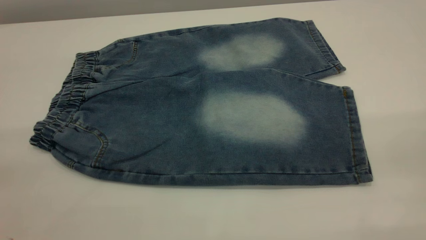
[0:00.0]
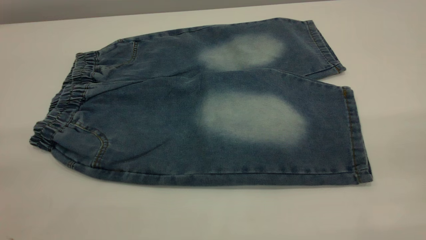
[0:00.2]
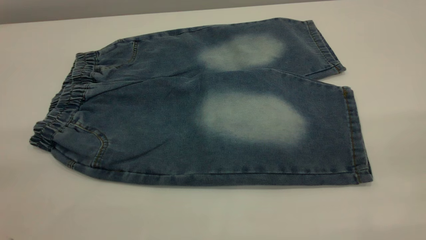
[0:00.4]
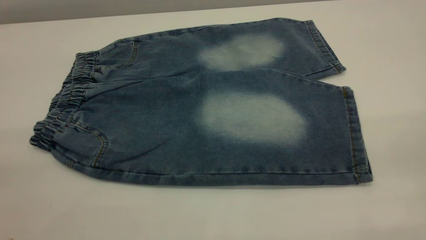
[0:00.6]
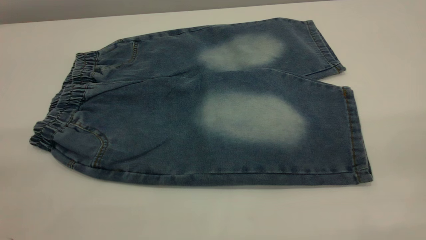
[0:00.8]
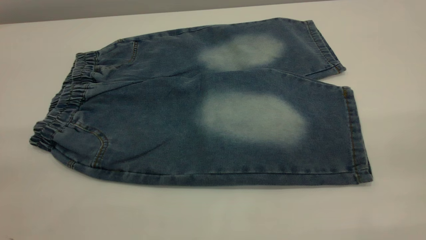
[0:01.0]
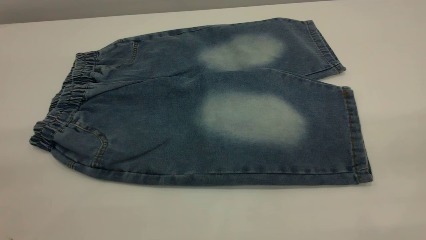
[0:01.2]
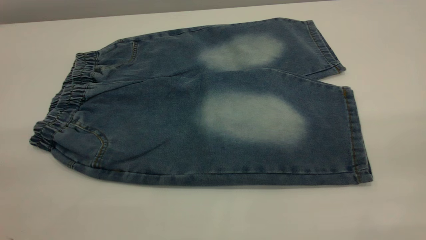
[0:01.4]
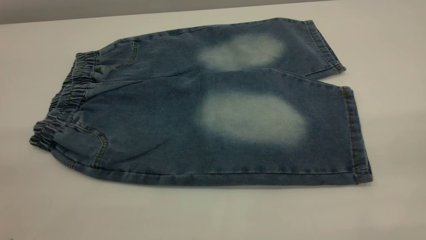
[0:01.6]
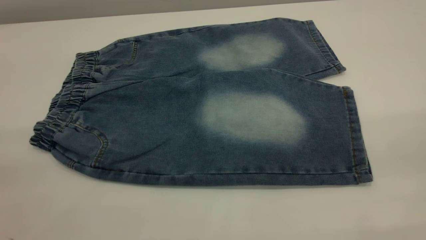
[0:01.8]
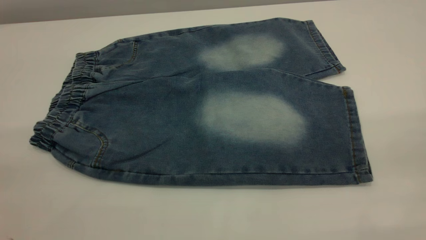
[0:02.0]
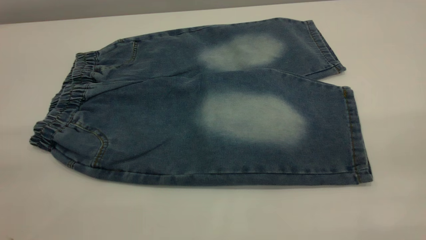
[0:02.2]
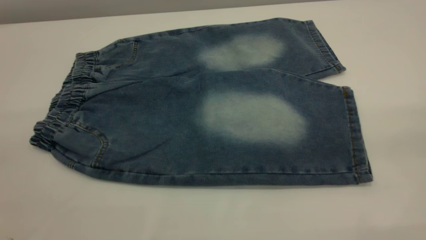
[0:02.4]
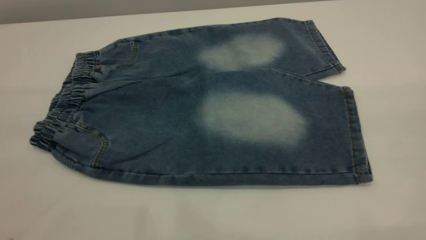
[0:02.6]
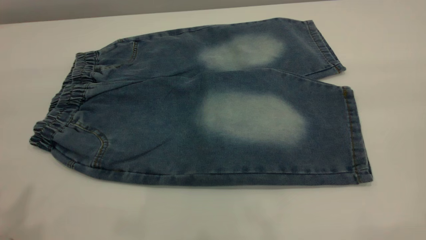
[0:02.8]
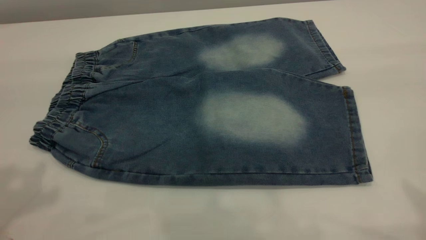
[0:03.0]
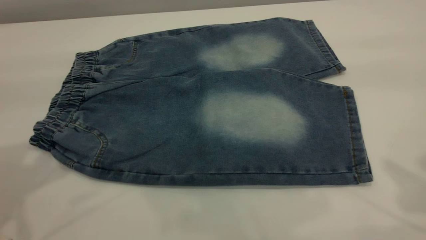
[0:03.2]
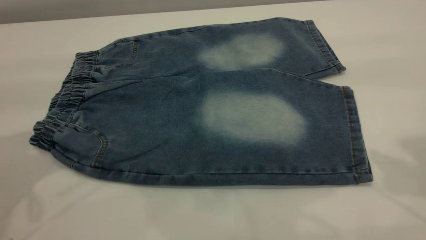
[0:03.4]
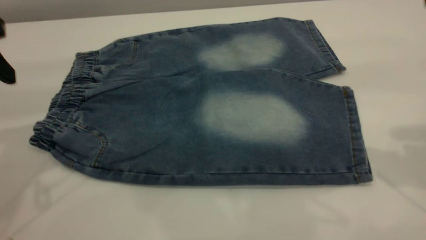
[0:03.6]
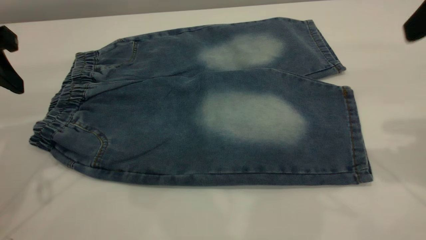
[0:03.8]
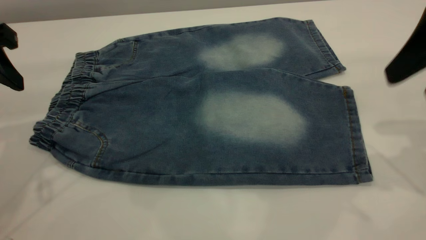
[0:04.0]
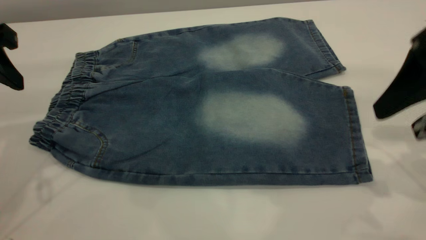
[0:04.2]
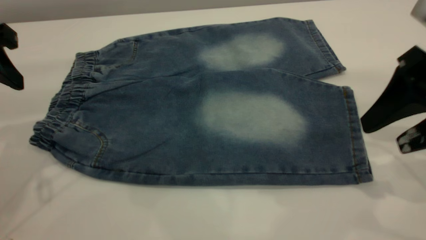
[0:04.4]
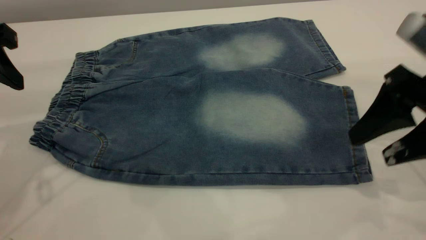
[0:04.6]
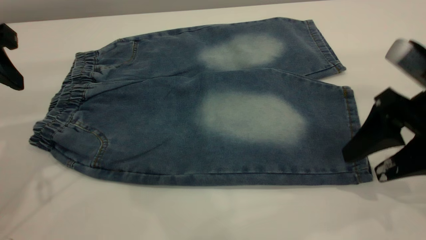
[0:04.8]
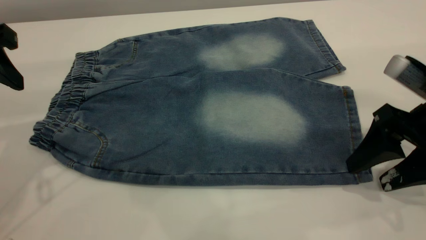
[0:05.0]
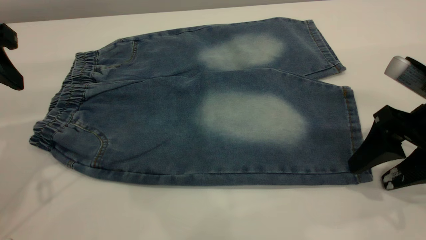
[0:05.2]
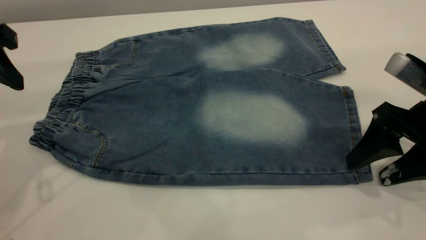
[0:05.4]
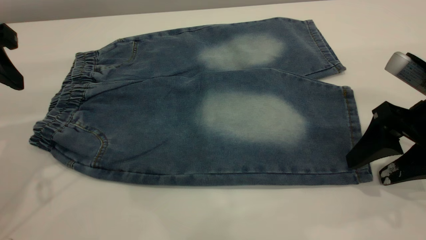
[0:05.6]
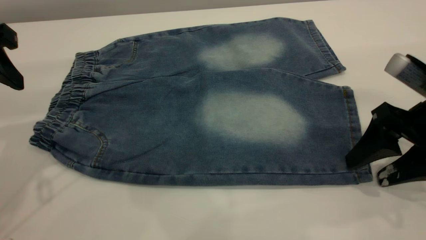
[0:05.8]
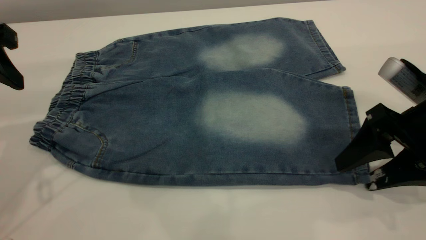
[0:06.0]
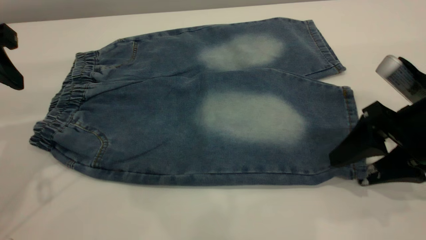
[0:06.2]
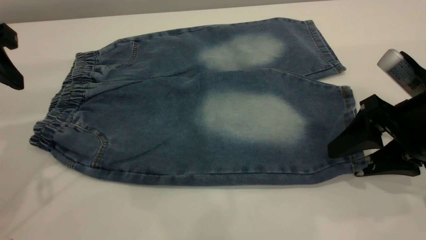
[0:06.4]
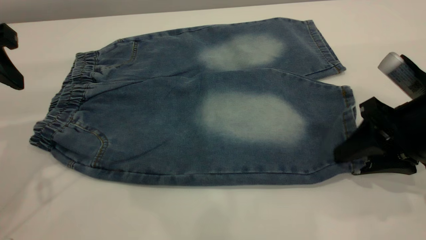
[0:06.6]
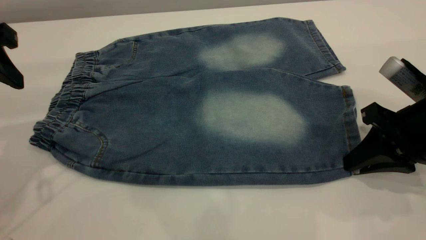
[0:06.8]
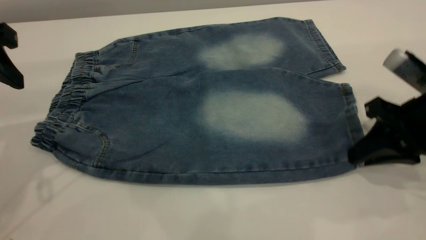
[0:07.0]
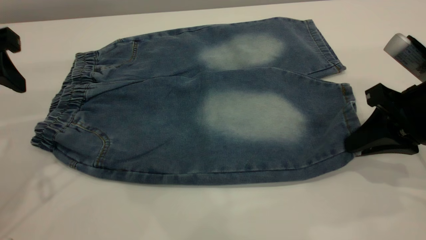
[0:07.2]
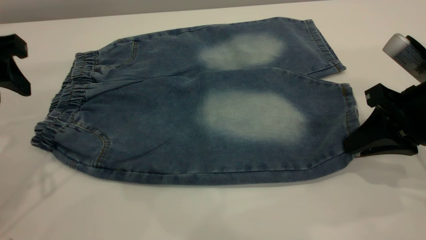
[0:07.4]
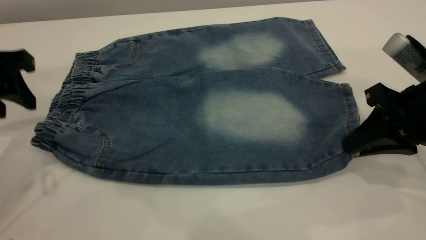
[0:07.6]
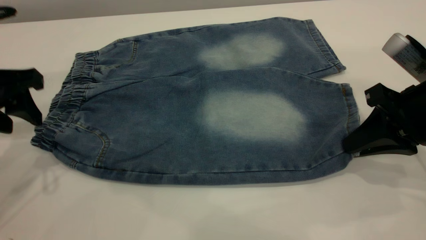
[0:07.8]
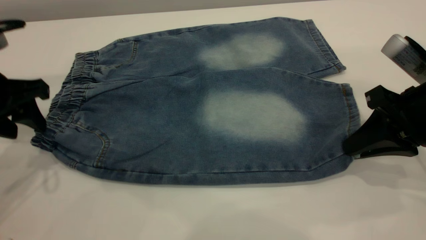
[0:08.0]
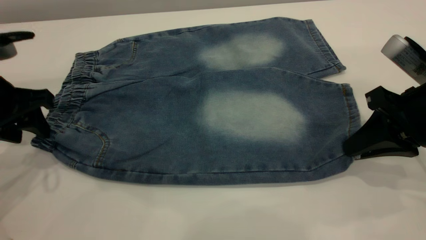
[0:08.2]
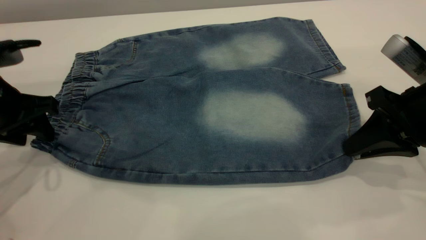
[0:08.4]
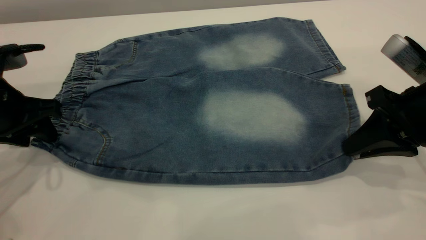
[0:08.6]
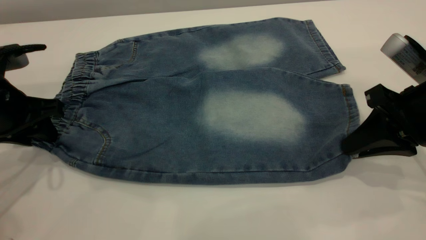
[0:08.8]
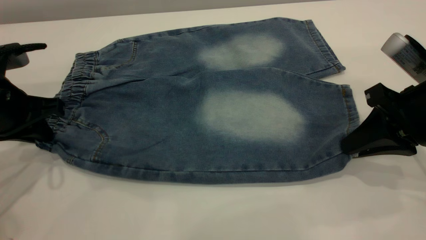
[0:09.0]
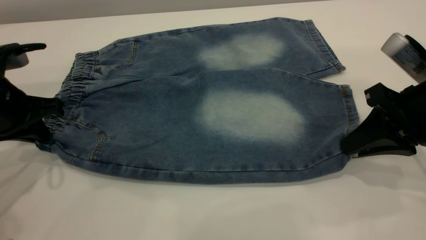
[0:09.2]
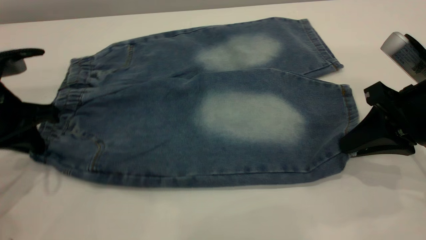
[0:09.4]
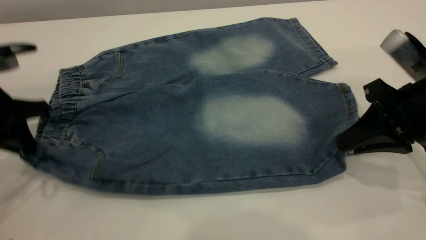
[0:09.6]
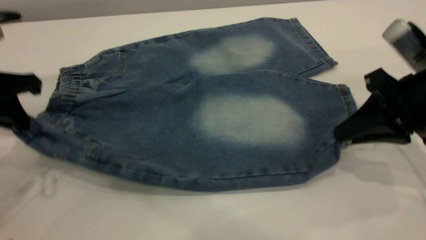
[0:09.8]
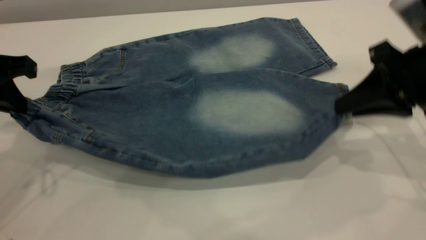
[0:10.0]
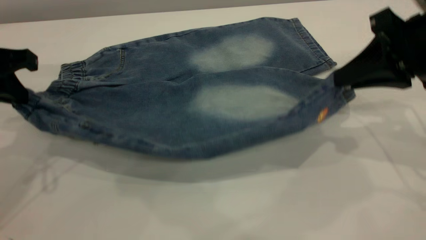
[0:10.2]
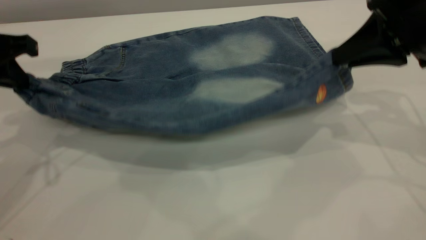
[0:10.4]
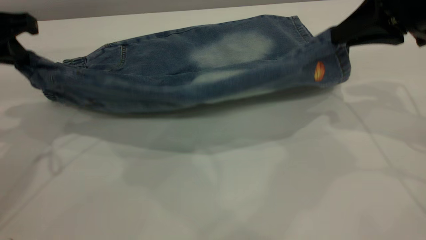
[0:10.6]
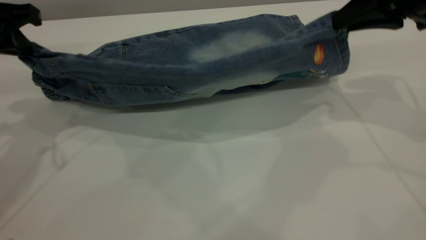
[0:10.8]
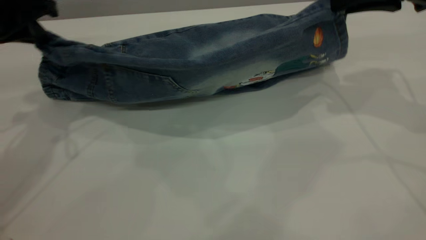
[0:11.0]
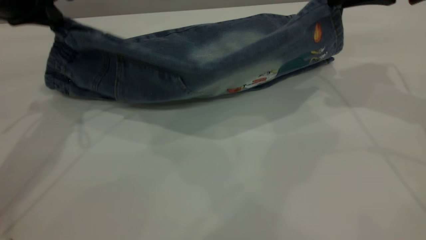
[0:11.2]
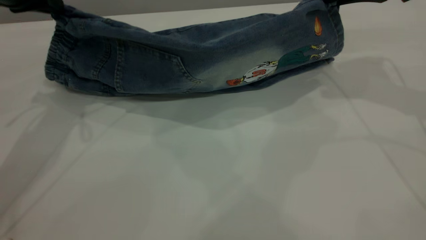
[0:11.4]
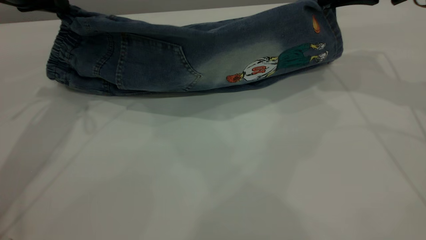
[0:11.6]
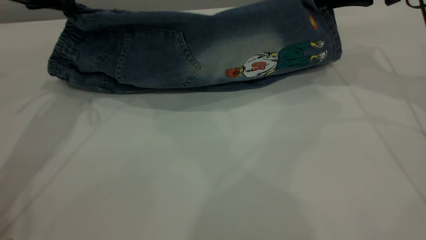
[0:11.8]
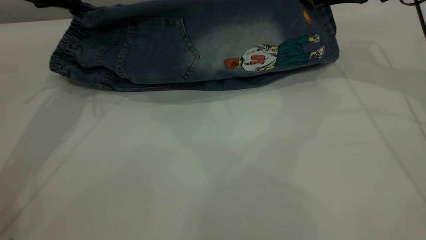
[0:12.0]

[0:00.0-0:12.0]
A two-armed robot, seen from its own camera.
0:00.0 to 0:01.6: Both grippers stay put.
0:03.0 to 0:04.4: The left gripper travels downward and forward by about 15 cm. The right gripper moves downward and forward, roughly 25 cm.
0:04.4 to 0:06.0: The right gripper goes about 10 cm downward.
0:06.0 to 0:07.6: The right gripper closes.
0:07.6 to 0:09.0: The left gripper shifts about 10 cm downward, and closes its fingers.
0:09.0 to 0:10.4: The left gripper goes about 10 cm upward; the right gripper travels upward and forward by about 10 cm.
0:10.4 to 0:12.0: Both grippers travel together forward, about 15 cm.

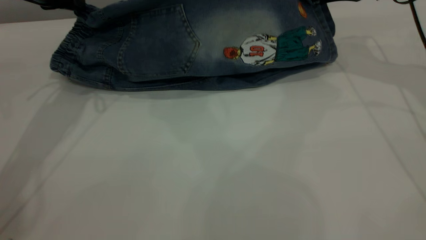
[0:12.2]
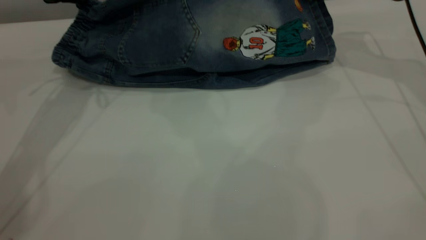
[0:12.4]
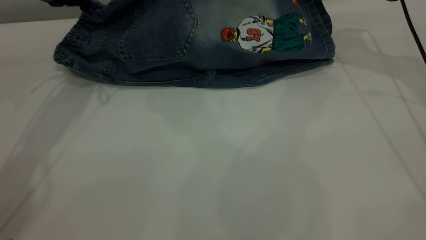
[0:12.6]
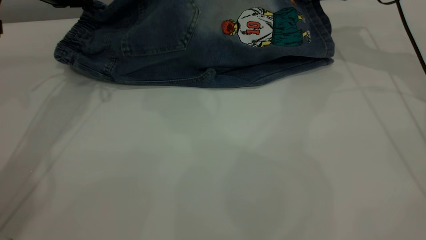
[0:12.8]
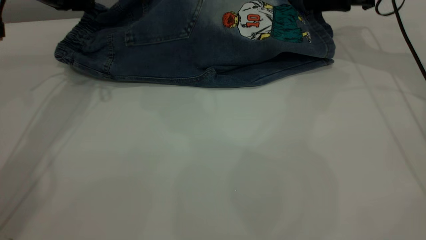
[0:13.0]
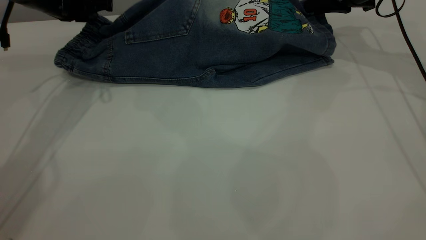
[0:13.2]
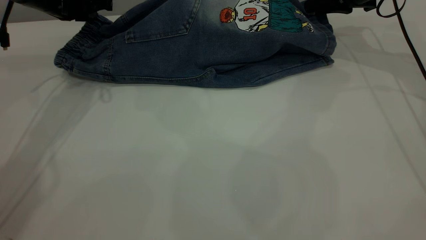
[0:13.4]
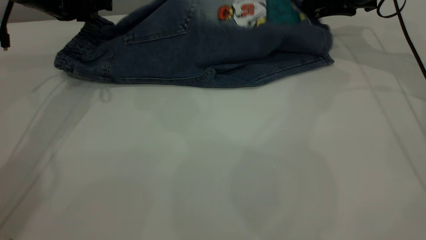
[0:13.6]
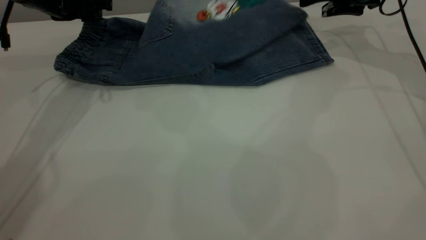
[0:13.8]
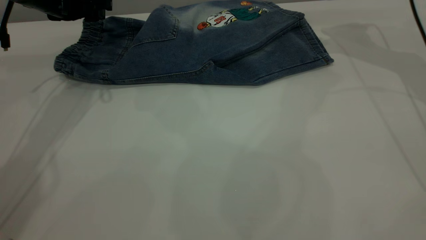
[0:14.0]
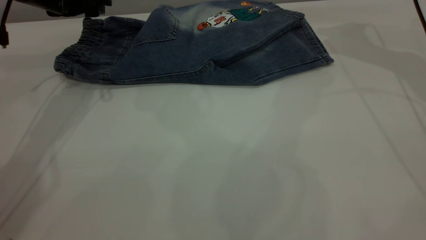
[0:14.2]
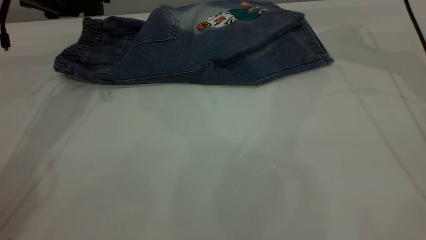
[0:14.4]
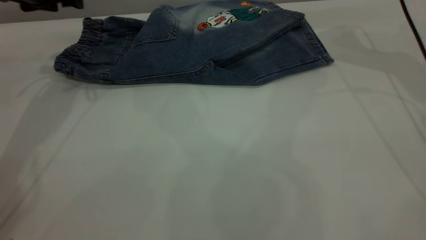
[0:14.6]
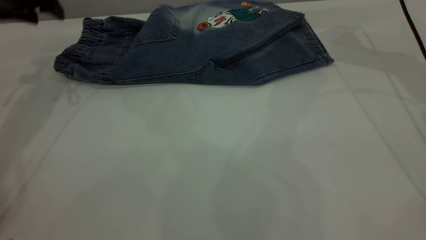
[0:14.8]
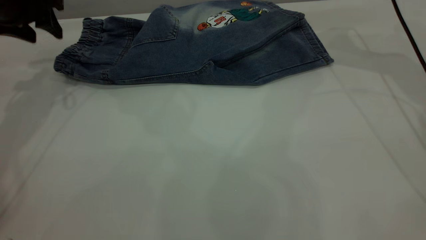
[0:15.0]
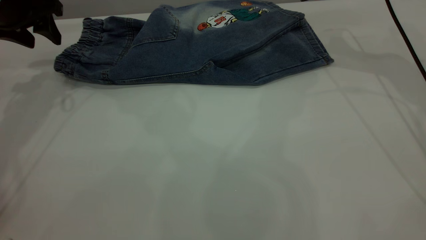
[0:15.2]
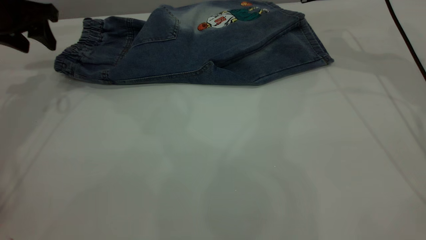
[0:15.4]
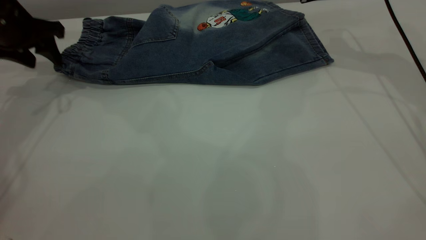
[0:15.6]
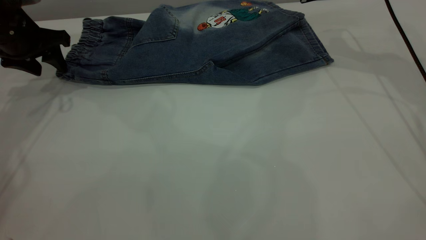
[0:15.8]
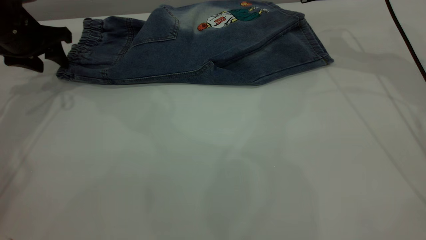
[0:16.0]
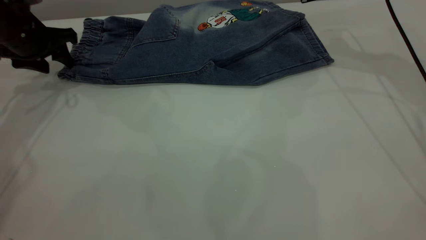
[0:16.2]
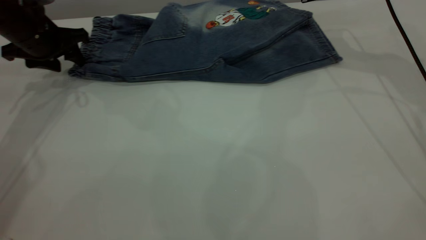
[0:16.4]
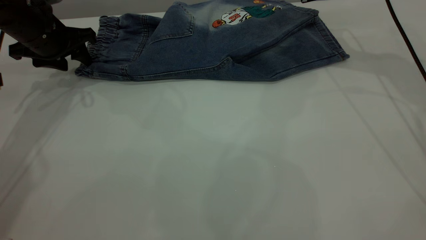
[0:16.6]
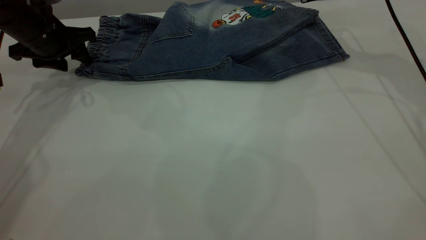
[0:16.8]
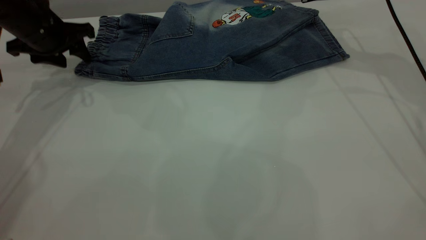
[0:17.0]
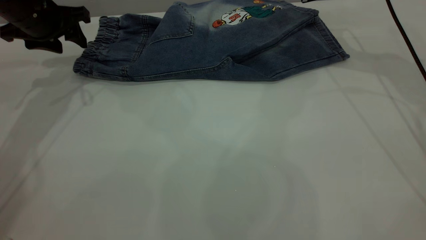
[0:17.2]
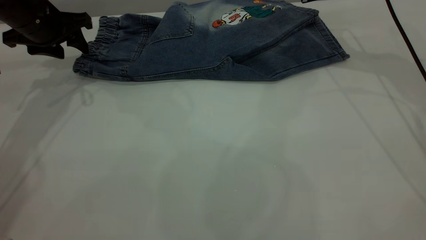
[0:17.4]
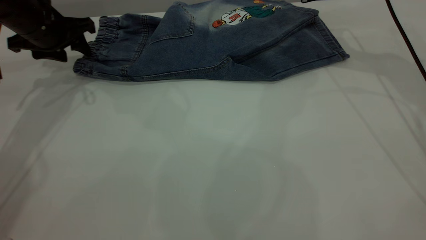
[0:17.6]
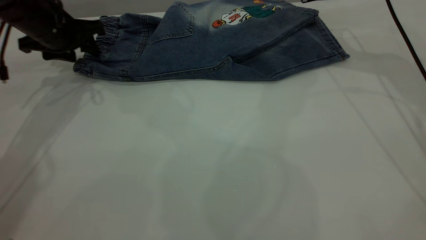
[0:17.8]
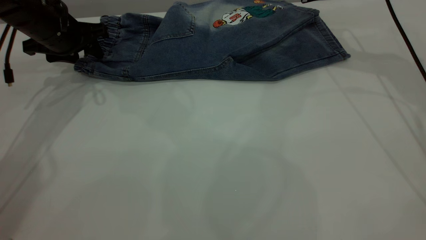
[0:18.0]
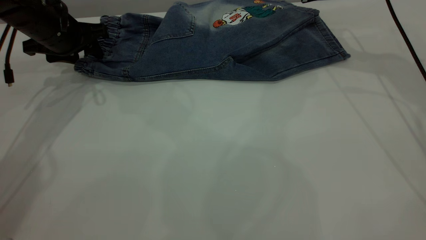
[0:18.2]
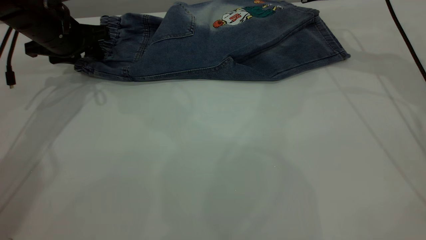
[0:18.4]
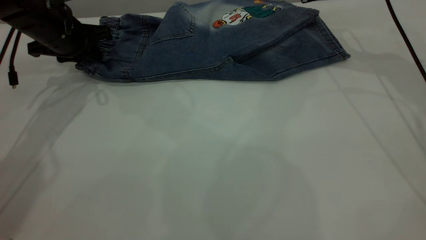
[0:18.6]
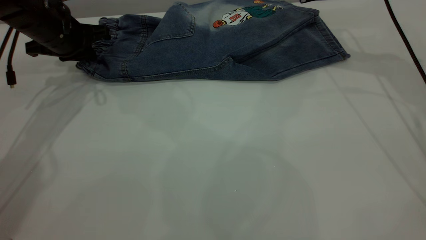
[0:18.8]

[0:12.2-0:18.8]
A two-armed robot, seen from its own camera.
Step, 0:12.2 to 0:15.4: Fold the bottom of the pants upward.
0:12.2 to 0:13.8: The left gripper opens up. The right gripper moves approximately 5 cm, and opens up.
0:13.8 to 0:15.4: The right gripper shifts by approximately 5 cm, while the left gripper moves to the left, some 5 cm.
0:17.2 to 0:18.8: The left gripper closes its fingers.
